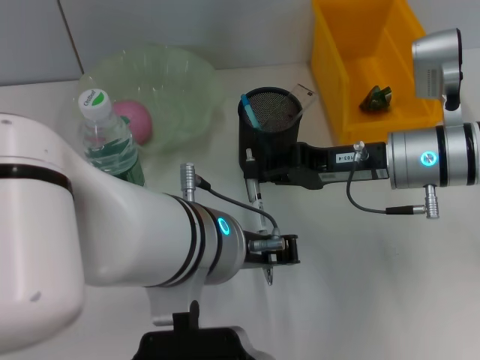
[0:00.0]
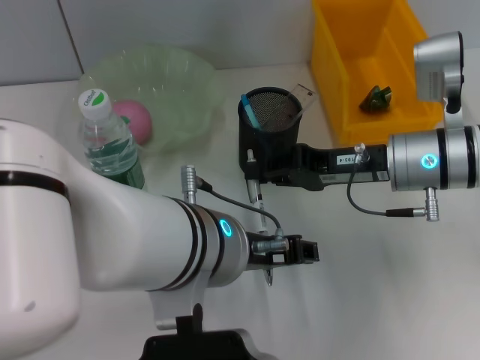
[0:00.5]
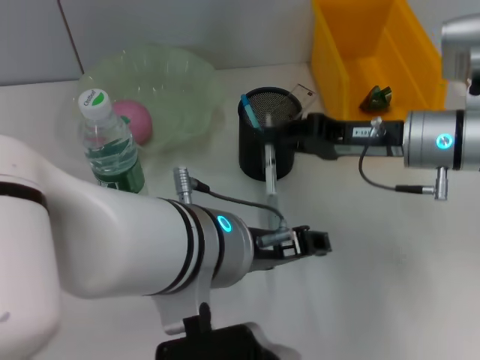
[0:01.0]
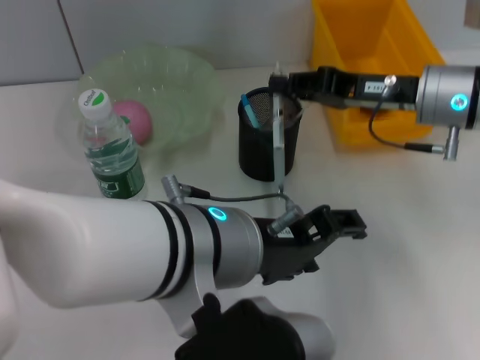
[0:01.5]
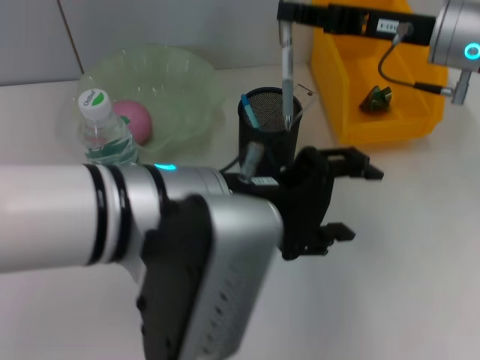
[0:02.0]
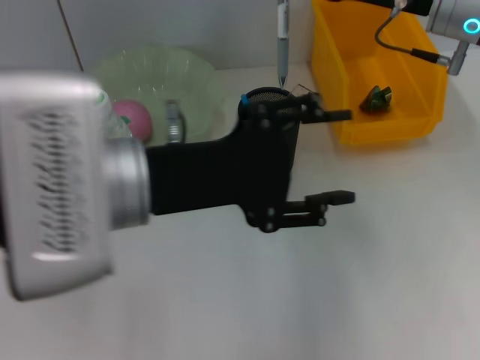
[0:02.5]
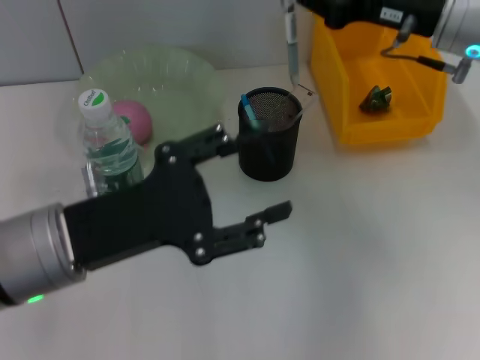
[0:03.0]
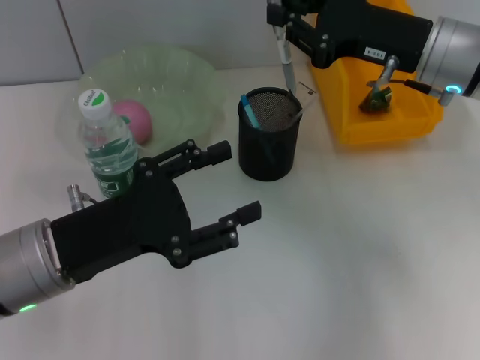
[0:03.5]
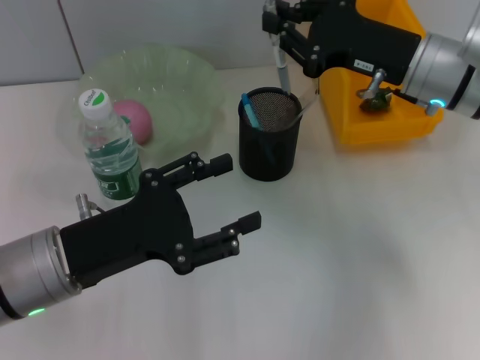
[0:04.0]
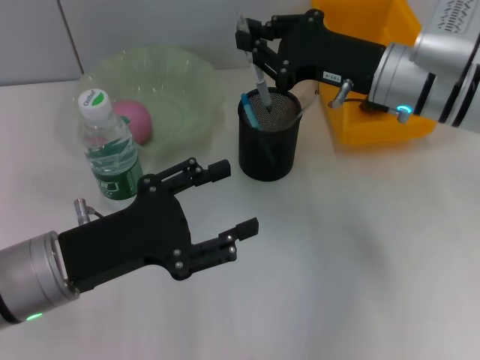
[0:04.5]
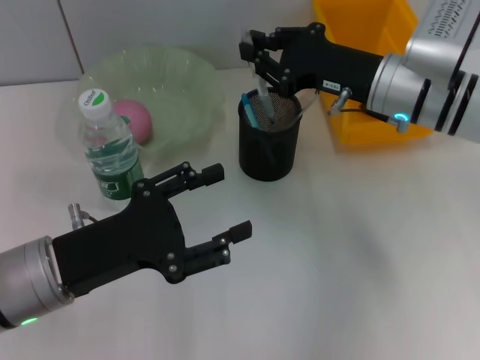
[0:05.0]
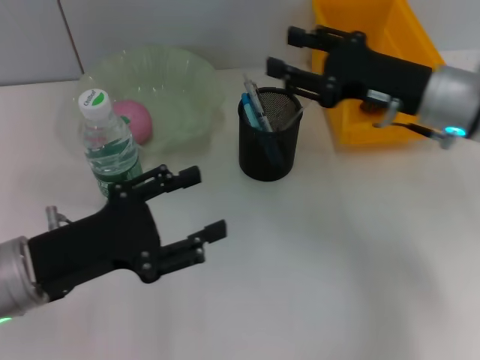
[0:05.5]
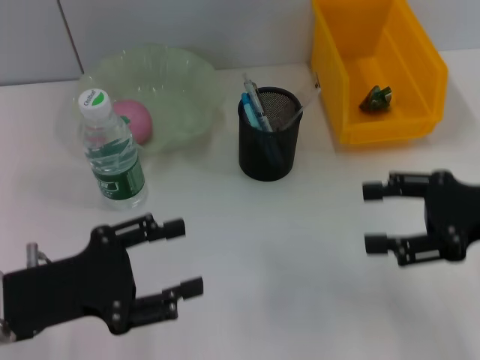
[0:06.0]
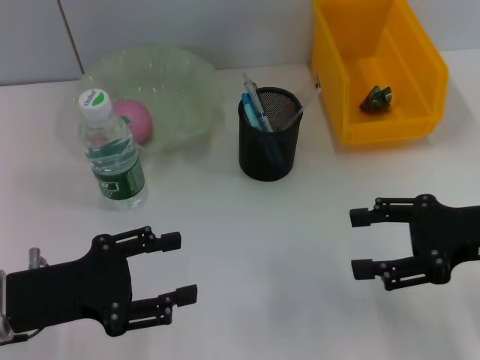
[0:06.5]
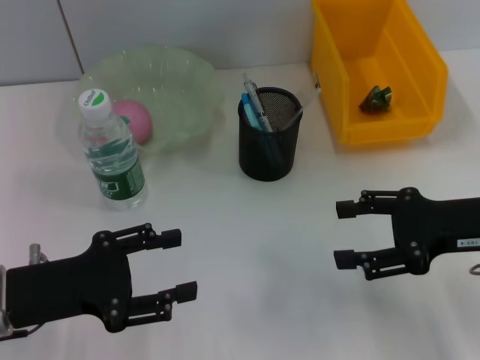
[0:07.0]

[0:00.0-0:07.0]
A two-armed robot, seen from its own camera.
Step, 0:00.0 to 0:05.0: Place the gray spring-action pen into the pen holder with the right hand.
0:00.0 to 0:02.0: The right gripper heads upward, covering about 10 cm; the left gripper opens.
0:02.0 to 0:03.5: The left gripper goes some 15 cm to the left and downward.
0:03.5 to 0:05.0: The right gripper changes place by some 5 cm.
0:05.0 to 0:07.0: The left gripper heads to the left, covering about 5 cm; the right gripper moves backward and to the right, approximately 15 cm, and opens its fingers.

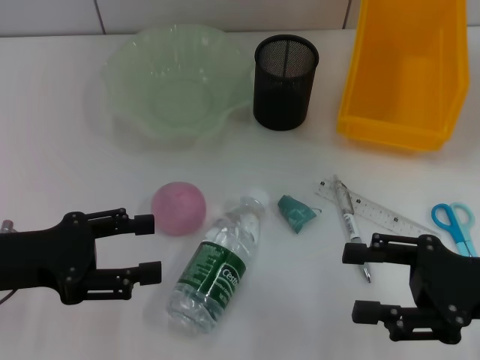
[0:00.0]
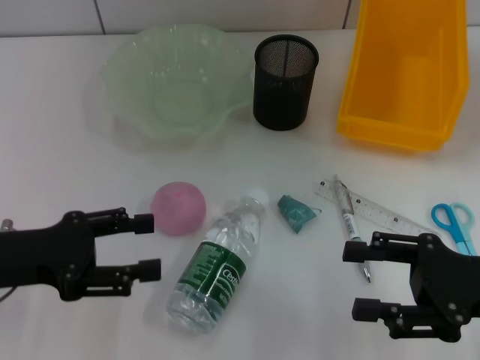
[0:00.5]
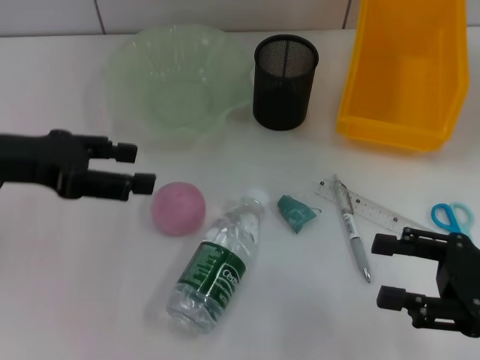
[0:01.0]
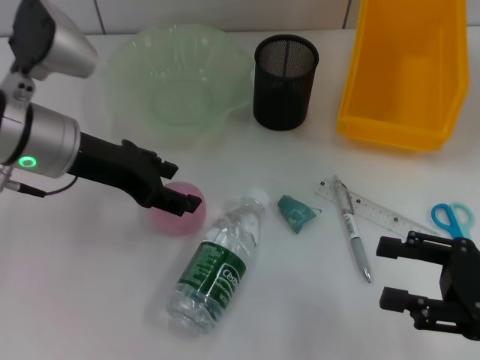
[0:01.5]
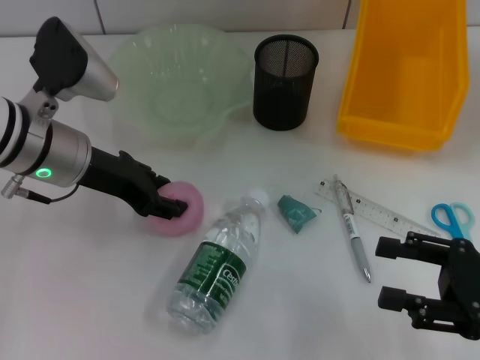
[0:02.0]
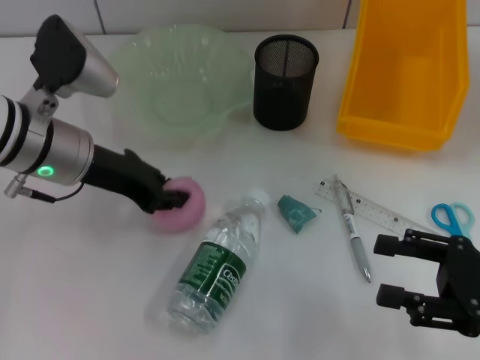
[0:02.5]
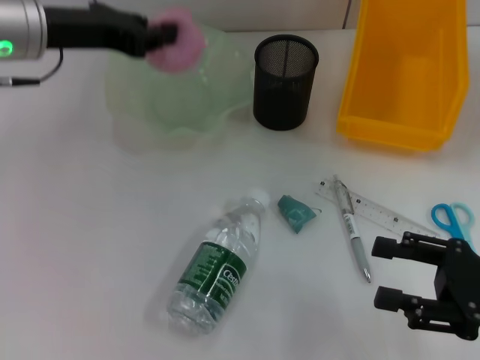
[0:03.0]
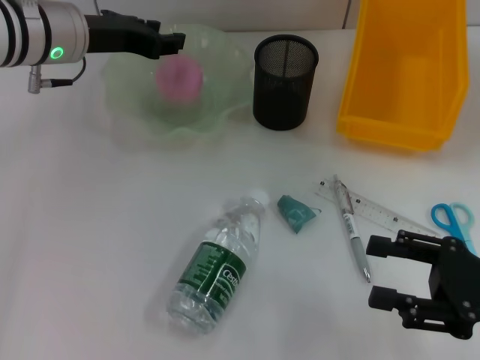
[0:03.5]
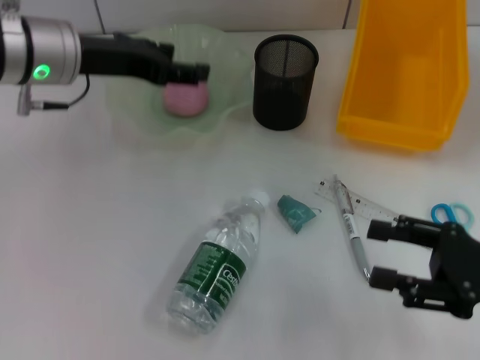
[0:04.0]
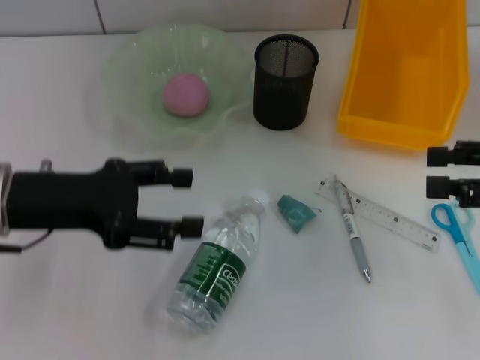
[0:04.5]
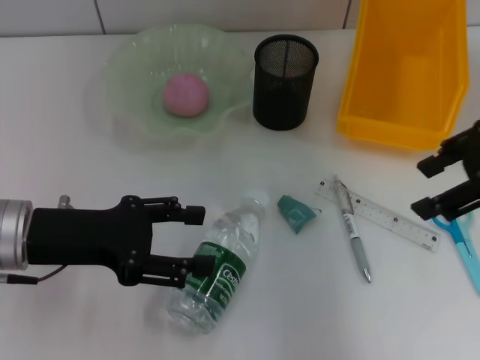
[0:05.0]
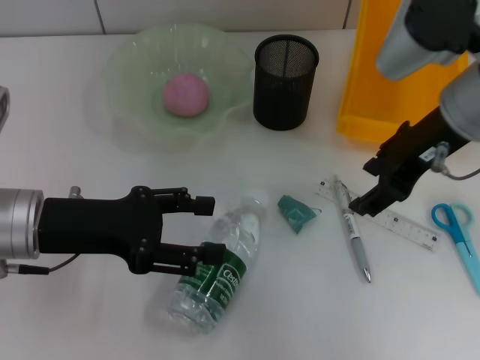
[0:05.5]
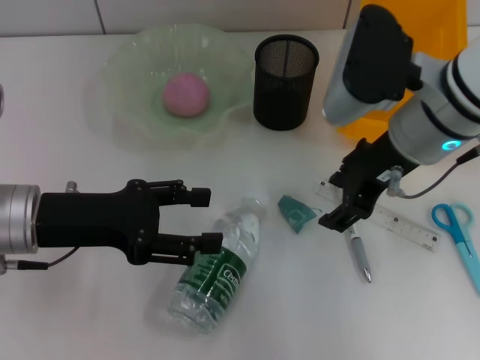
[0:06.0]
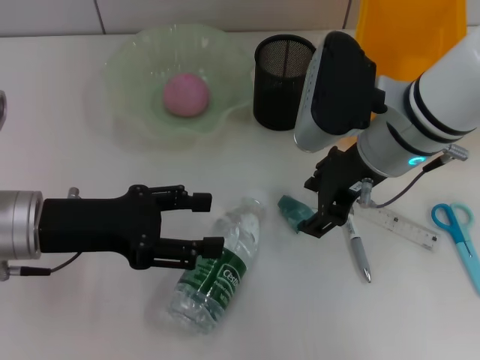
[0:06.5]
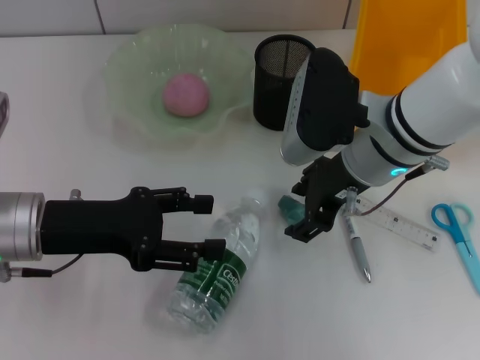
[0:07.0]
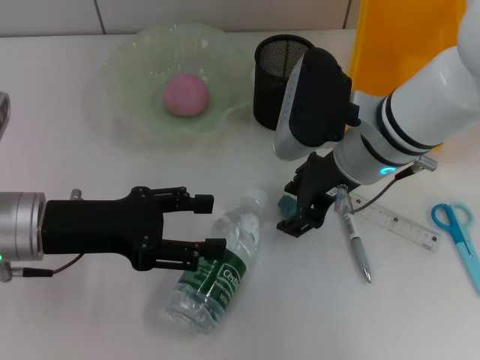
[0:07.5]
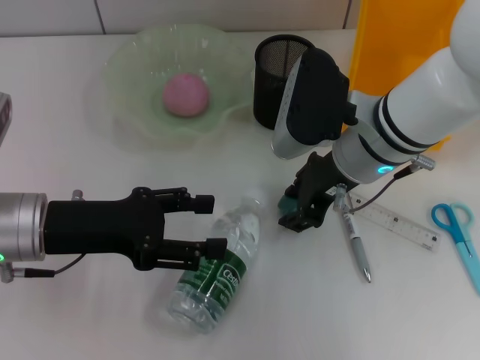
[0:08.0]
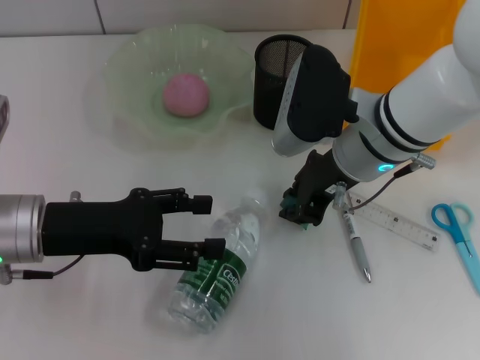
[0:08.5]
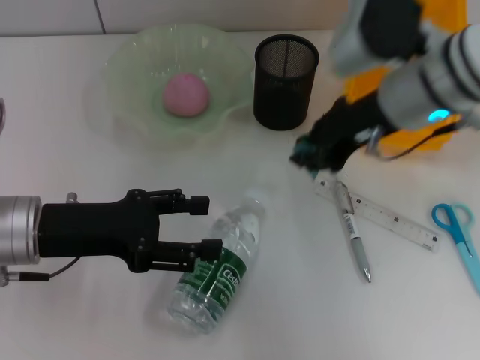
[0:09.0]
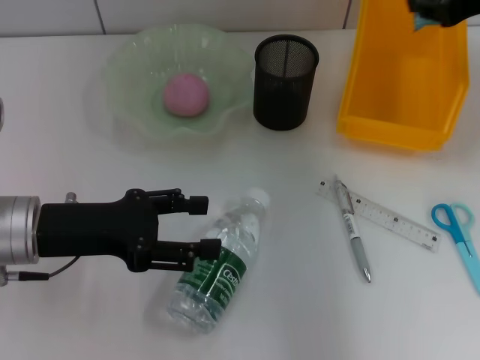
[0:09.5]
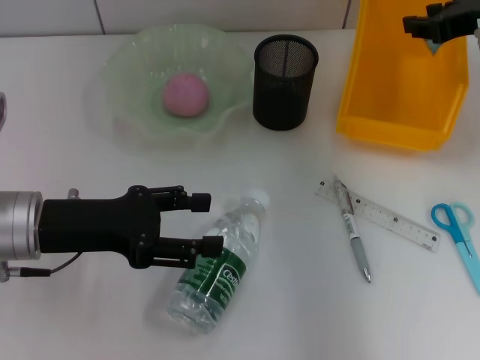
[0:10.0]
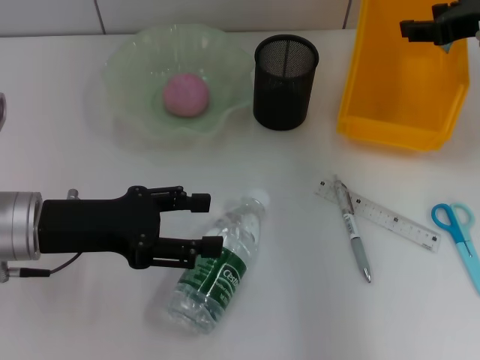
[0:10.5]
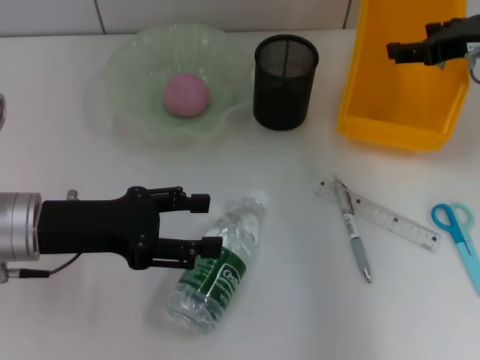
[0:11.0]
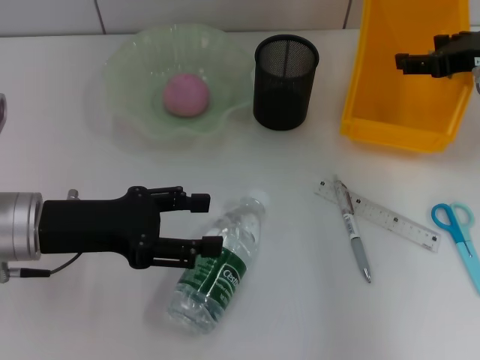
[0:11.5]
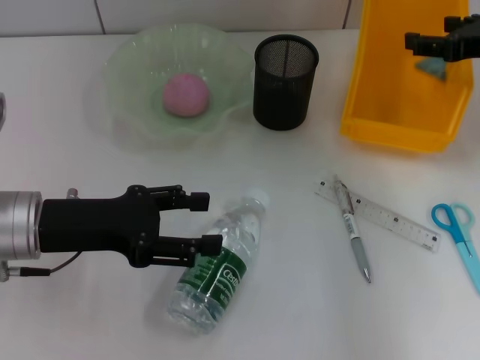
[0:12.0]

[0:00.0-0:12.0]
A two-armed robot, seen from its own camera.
Step, 0:00.0 to 0:02.0: Grab the peach with the left hand.
Step, 0:02.5 to 0:03.5: Place the peach into the fruit bowl with the left hand.
Step, 0:04.0 to 0:08.0: Grab the plastic with the right hand.
0:00.0 to 0:02.0: The left gripper heads forward and to the right, covering approximately 15 cm.
0:02.0 to 0:04.0: The left gripper goes roughly 5 cm upward, and closes, then reopens.
0:04.0 to 0:06.0: The left gripper goes some 15 cm backward and downward, while the right gripper moves to the left, forward and upward, approximately 20 cm.
0:06.0 to 0:08.0: The right gripper moves about 5 cm.
0:08.0 to 0:10.0: The right gripper shifts some 20 cm to the right and upward.
0:10.0 to 0:12.0: The right gripper opens its fingers.

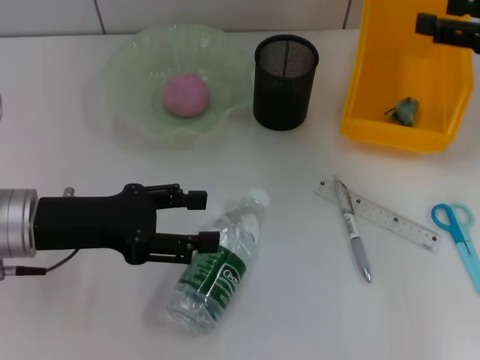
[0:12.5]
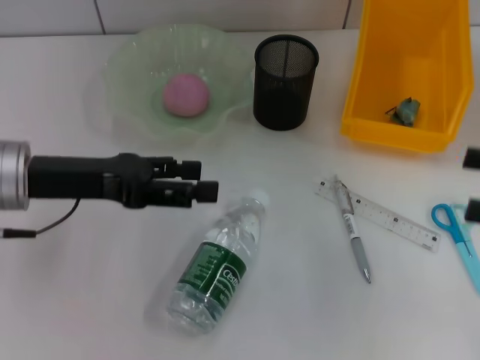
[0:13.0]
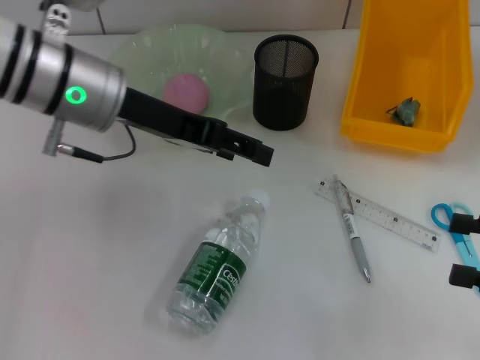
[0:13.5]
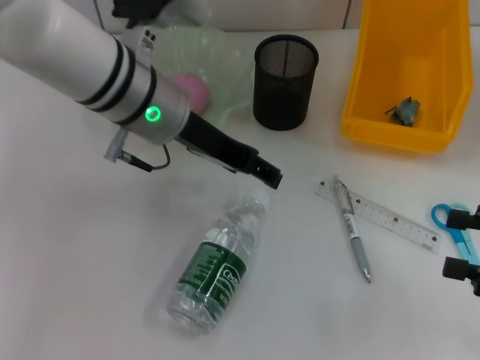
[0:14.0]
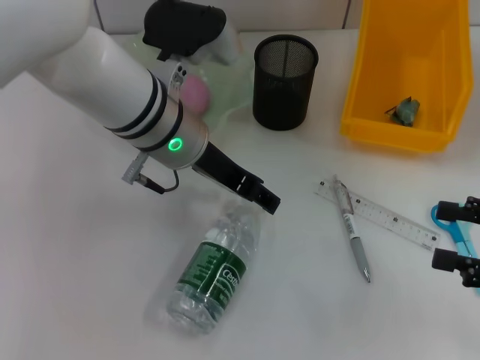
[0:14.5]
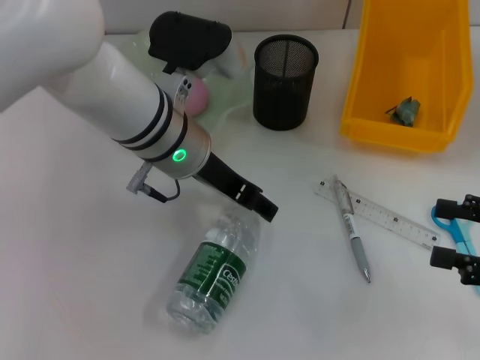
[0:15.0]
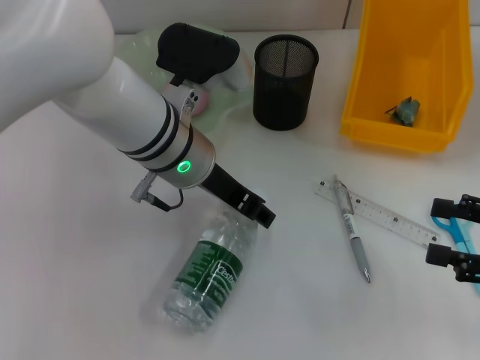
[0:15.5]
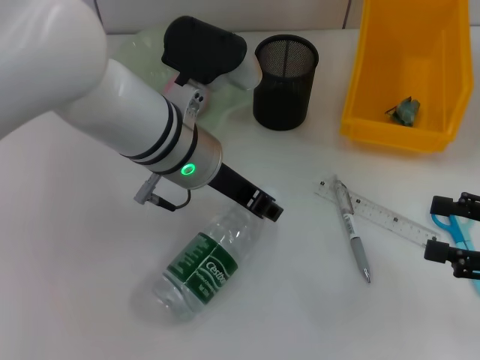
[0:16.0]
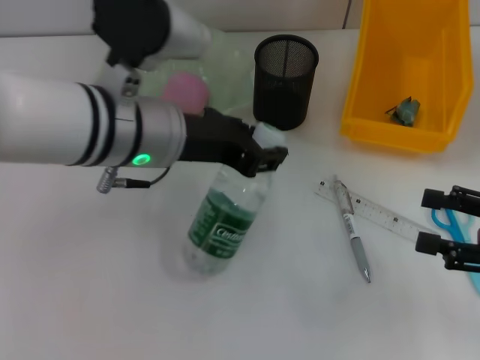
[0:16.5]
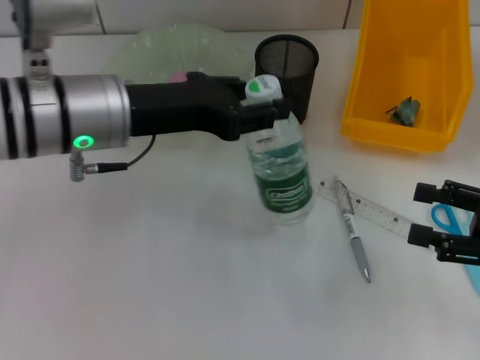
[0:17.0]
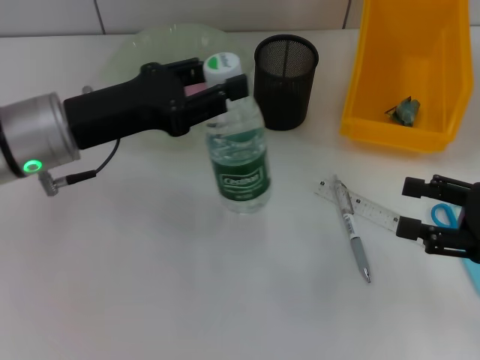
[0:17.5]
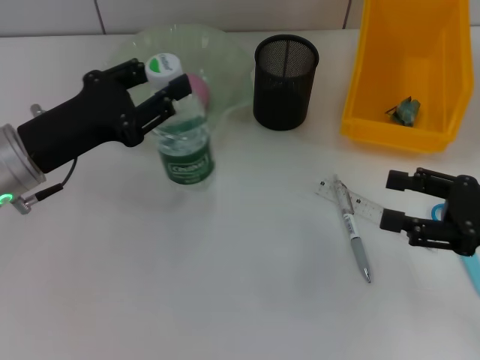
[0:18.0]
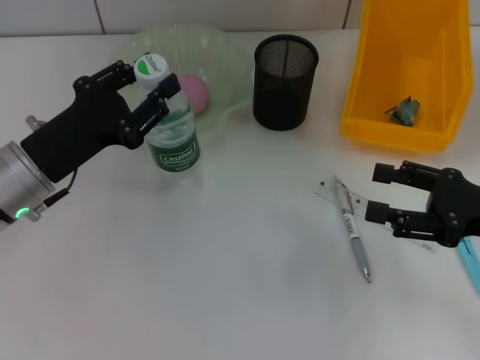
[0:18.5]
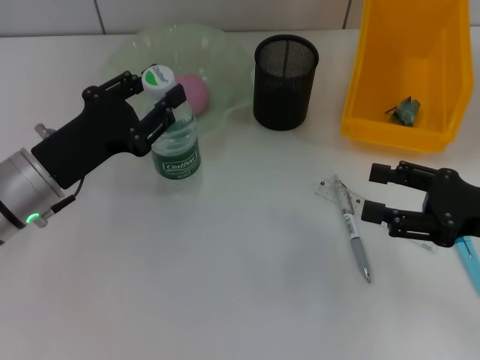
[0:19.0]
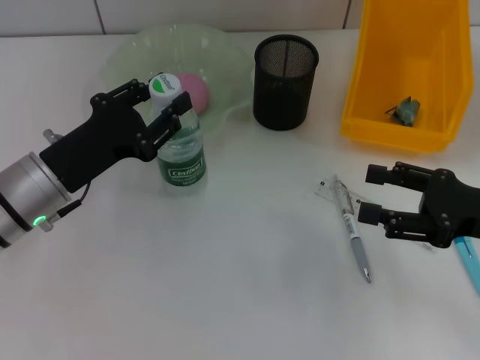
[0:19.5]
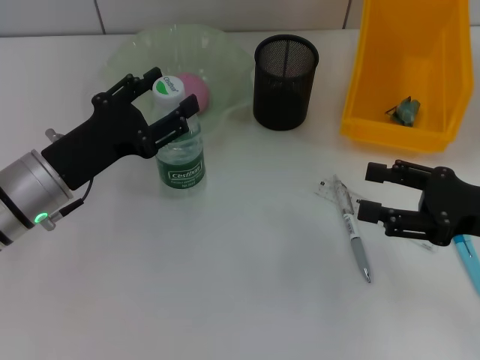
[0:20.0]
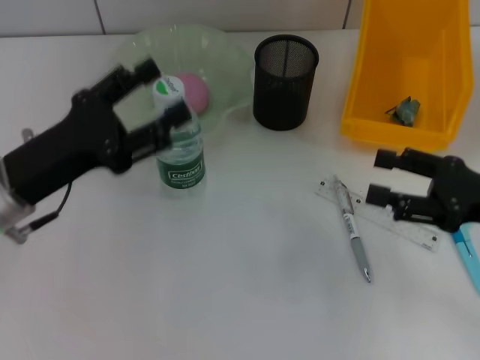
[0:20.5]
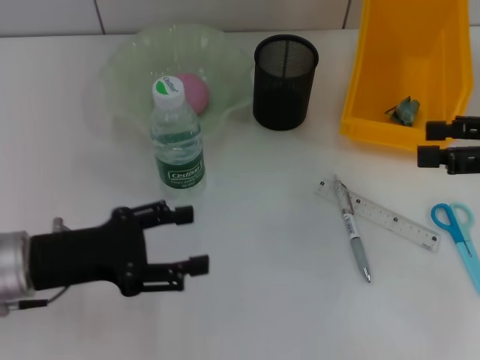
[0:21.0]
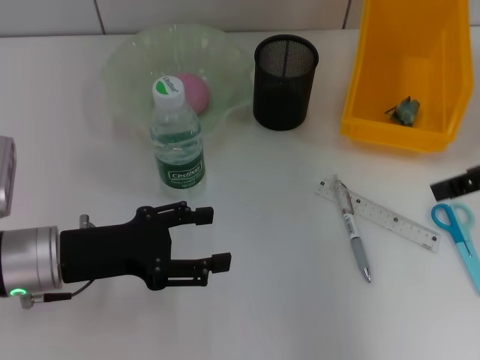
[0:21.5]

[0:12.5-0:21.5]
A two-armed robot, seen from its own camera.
Step, 0:13.0 to 0:15.5: Grab the water bottle with the left hand.
Step, 0:16.0 to 0:20.0: Place the water bottle on the table with the left hand.
0:12.5 to 0:14.5: The right gripper shifts about 15 cm backward and downward. Meanwhile the left gripper heads to the right and forward, covering some 20 cm.
0:14.5 to 0:17.0: The left gripper is displaced to the left by about 5 cm, and closes up.
0:17.0 to 0:19.5: The left gripper heads downward and to the left, covering some 15 cm.
0:19.5 to 0:21.5: The right gripper shifts roughly 15 cm upward; the left gripper opens.
